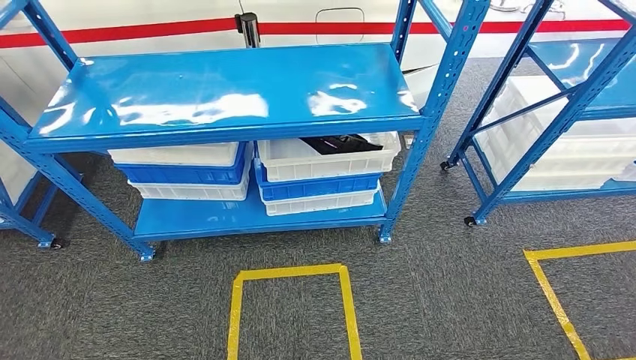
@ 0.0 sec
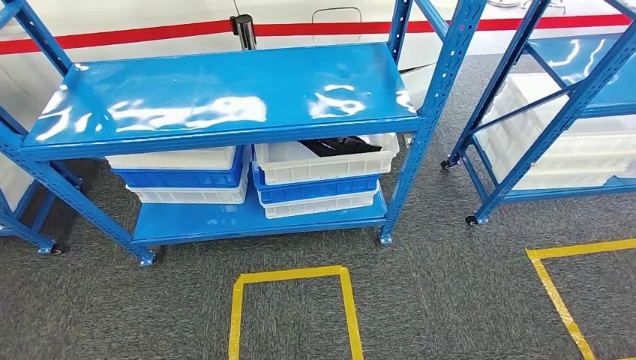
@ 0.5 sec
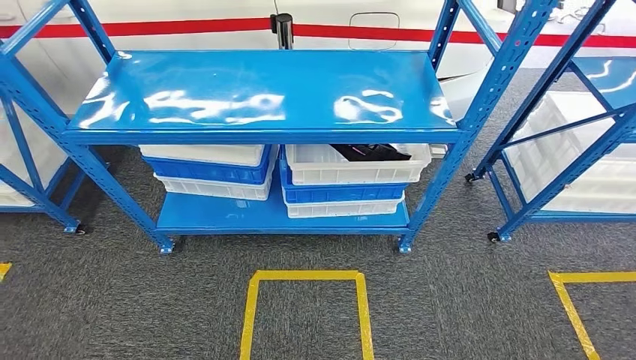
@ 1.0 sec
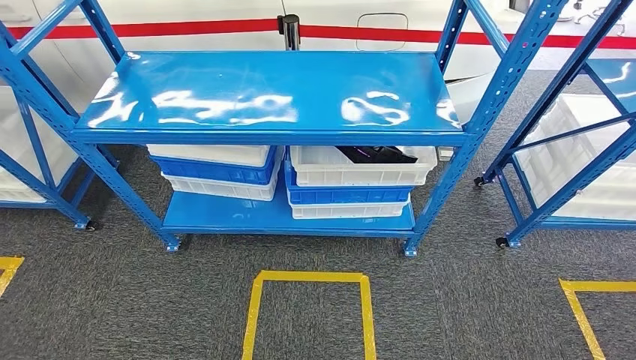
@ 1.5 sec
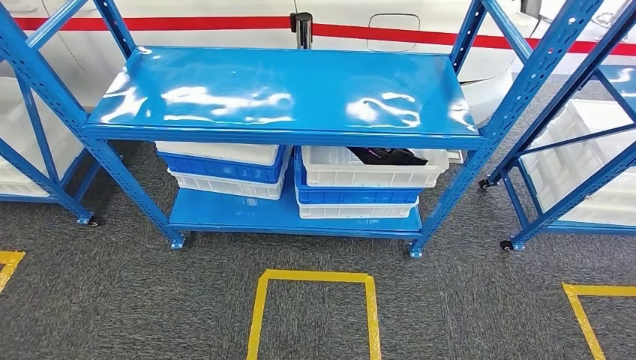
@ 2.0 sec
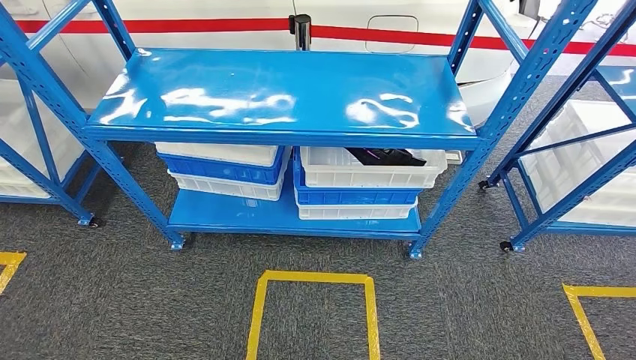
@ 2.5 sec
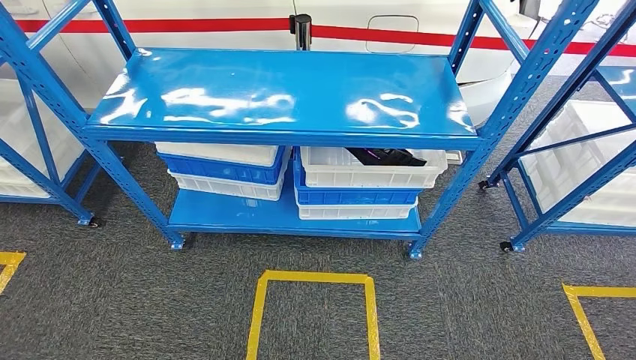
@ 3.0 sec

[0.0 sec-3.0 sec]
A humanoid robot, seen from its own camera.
Step, 0.0 sec to 3.0 sec: Return to the initial position at the shelf.
